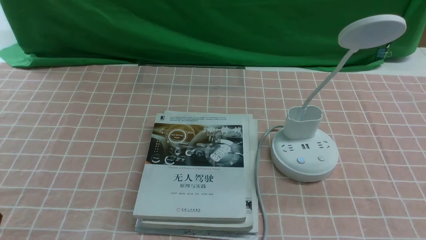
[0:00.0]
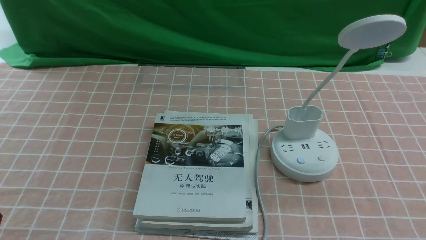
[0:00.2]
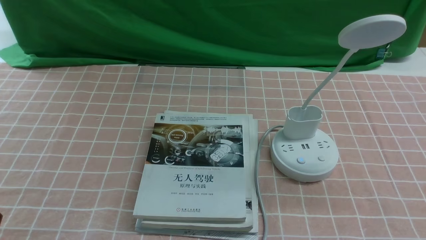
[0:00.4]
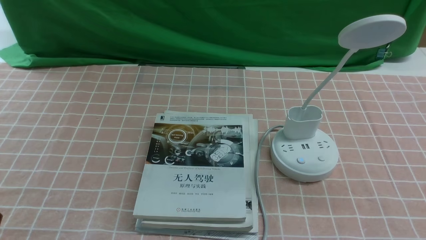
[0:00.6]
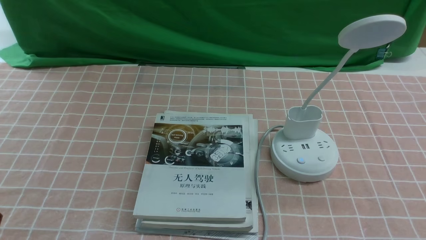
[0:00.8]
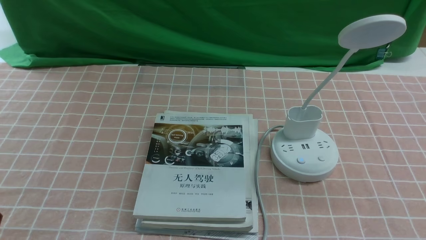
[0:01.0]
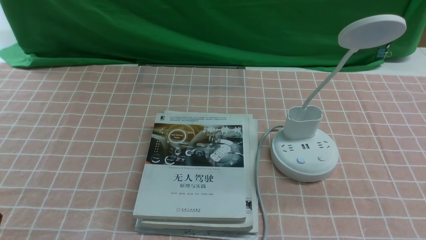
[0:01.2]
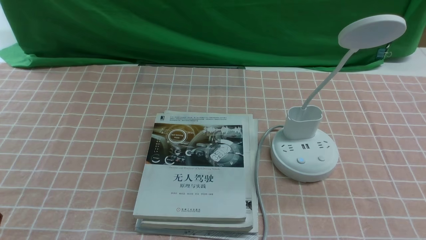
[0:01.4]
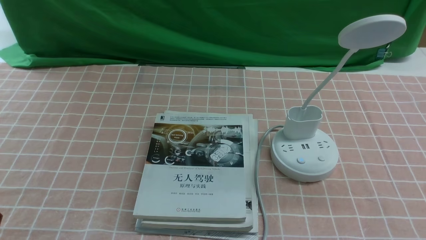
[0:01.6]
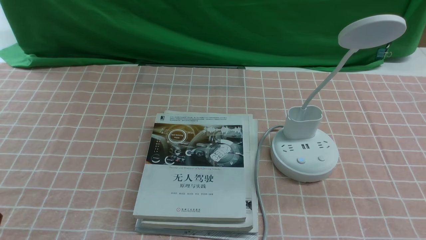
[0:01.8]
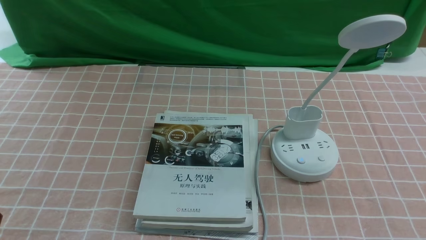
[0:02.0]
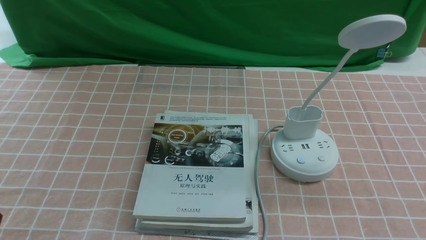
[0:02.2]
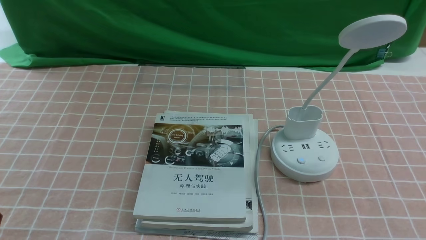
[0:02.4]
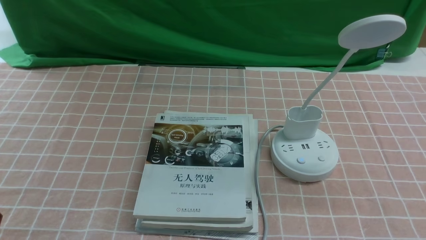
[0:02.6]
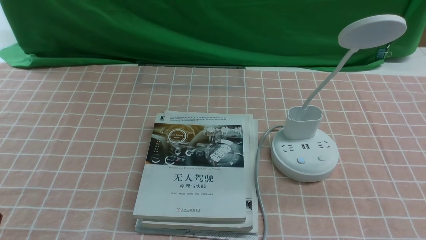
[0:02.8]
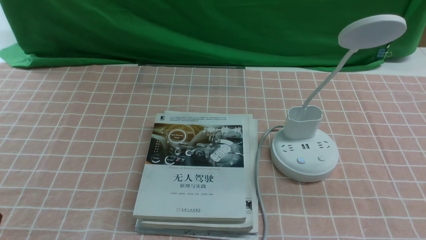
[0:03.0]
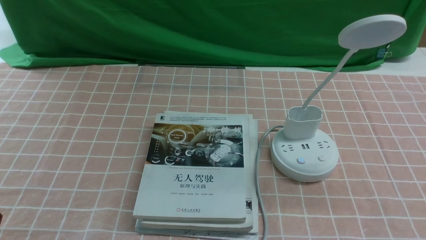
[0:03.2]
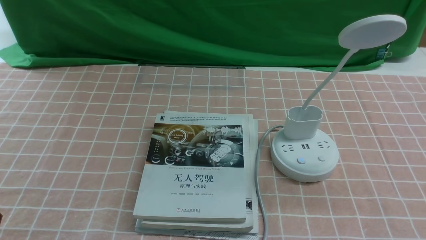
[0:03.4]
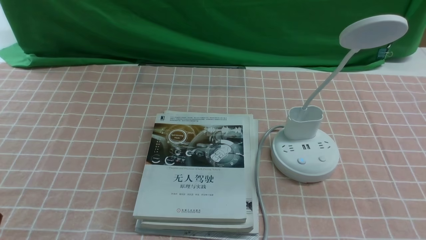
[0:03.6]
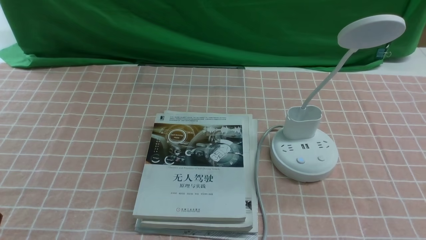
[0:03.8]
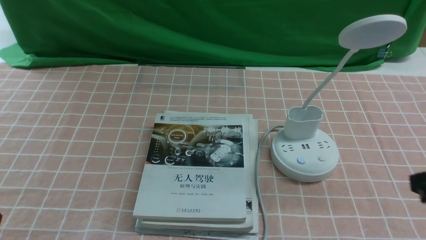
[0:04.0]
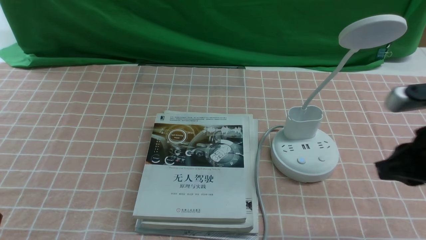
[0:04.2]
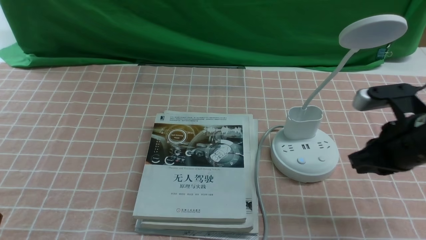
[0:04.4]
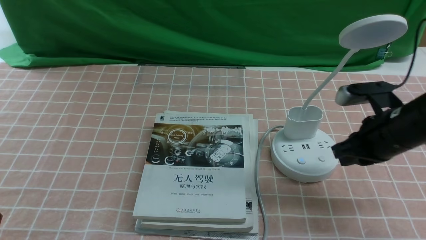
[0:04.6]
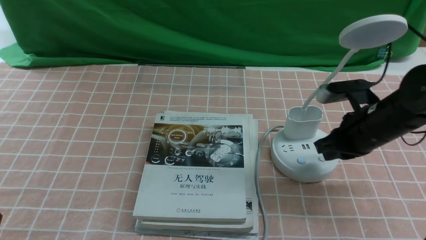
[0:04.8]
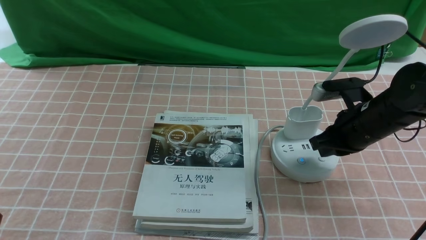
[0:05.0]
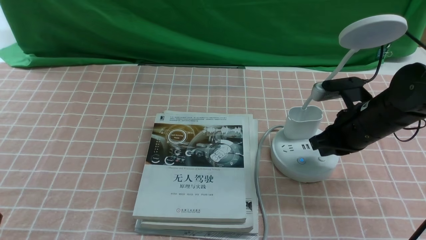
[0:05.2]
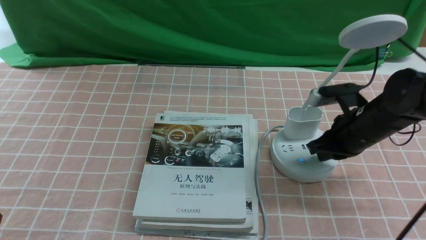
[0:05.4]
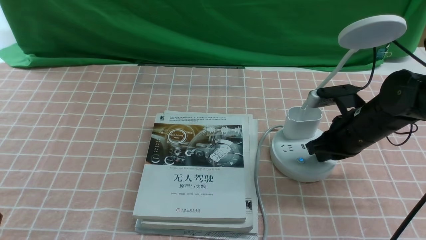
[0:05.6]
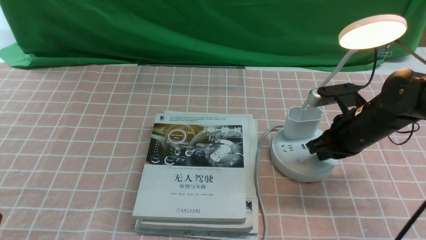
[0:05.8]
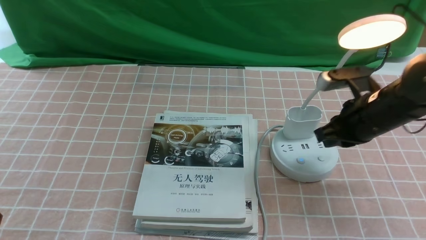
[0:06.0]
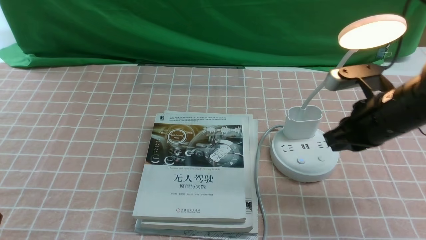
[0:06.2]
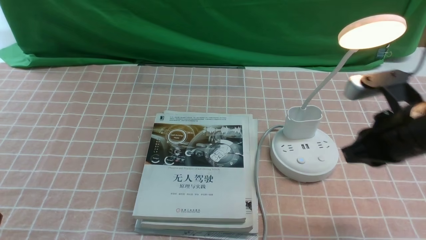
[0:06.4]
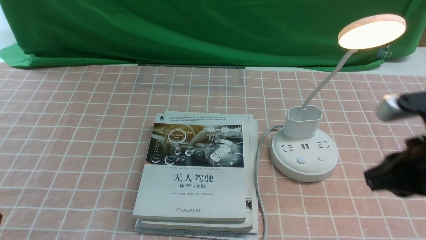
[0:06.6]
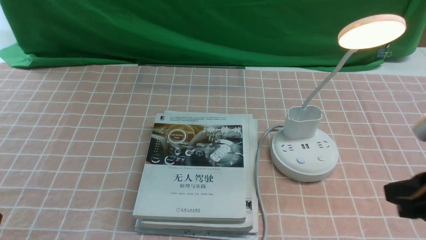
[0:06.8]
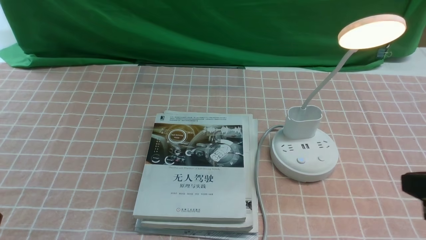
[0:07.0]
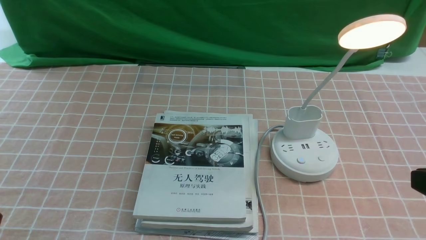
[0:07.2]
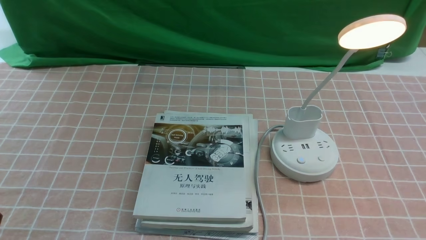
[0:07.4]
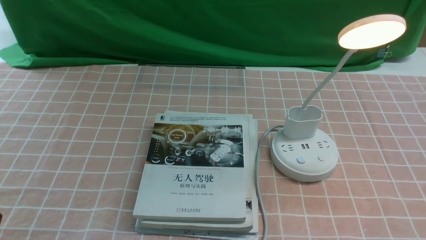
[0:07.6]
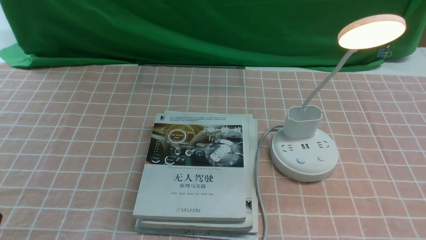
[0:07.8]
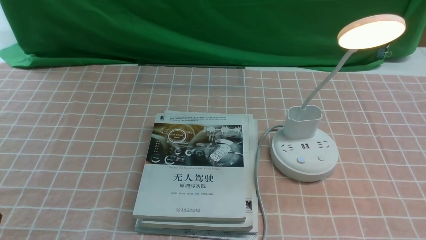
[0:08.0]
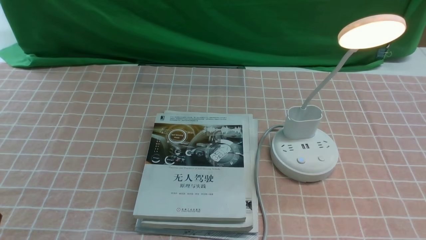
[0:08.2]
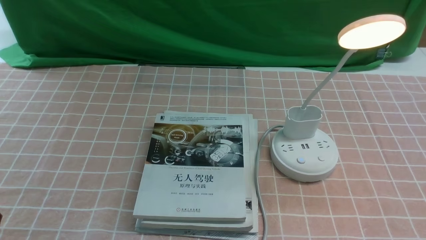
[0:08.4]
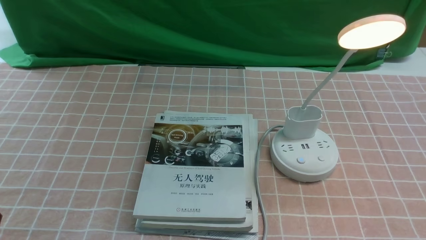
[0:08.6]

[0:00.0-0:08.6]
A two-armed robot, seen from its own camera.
Step, 0:00.0 to 0:06.0: use the right arm to press the button switch on the lamp holder.
0:00.0 to 0:01.4: Neither gripper changes place.
0:02.8 to 0:04.4: The right gripper travels forward by about 20 cm, and closes its fingers.
0:04.4 to 0:05.8: The right gripper shifts some 5 cm forward.
0:05.8 to 0:07.2: The right gripper moves backward and upward, roughly 25 cm.

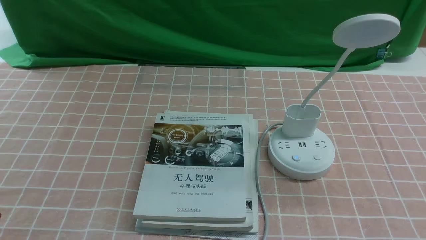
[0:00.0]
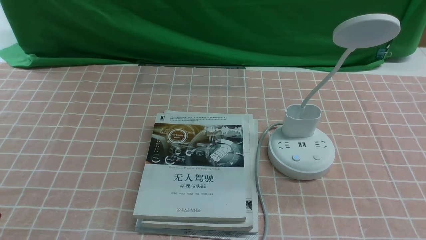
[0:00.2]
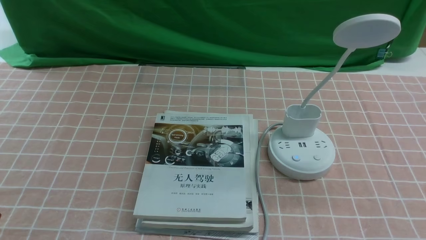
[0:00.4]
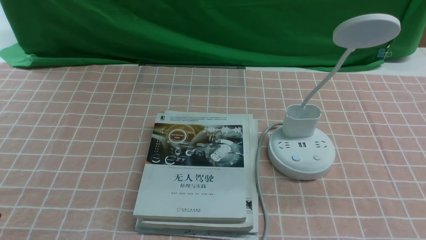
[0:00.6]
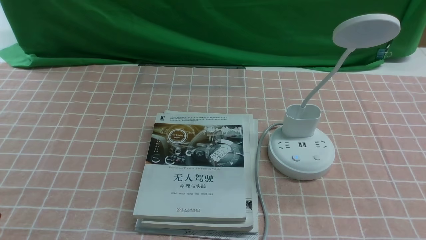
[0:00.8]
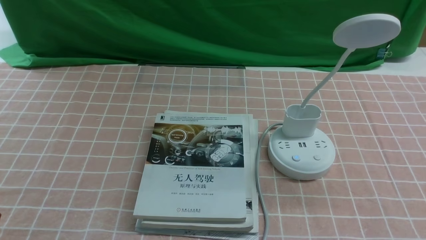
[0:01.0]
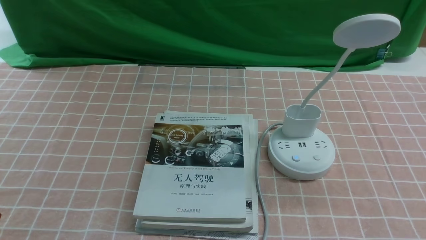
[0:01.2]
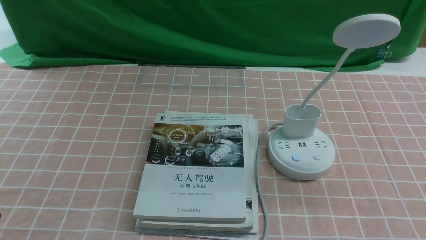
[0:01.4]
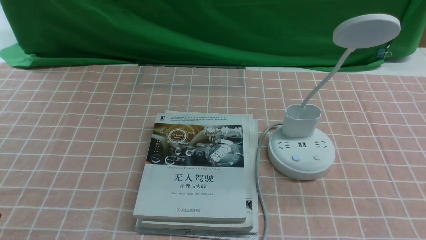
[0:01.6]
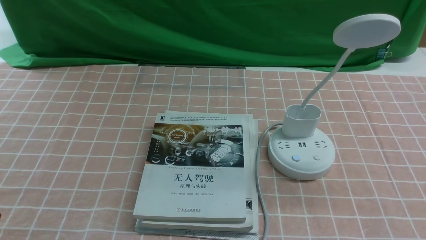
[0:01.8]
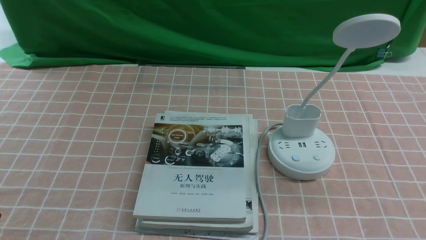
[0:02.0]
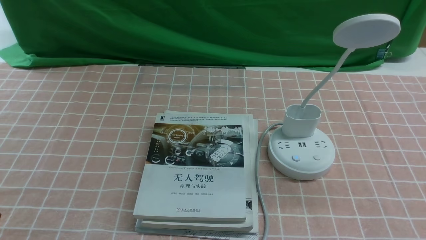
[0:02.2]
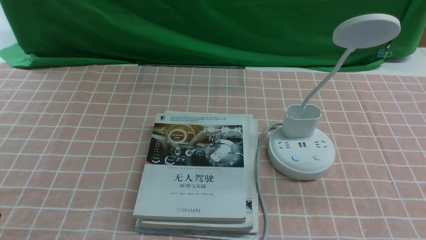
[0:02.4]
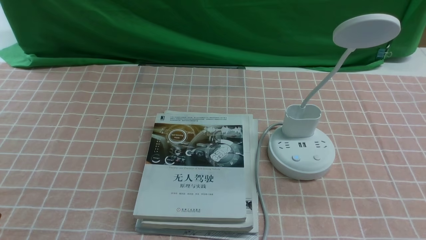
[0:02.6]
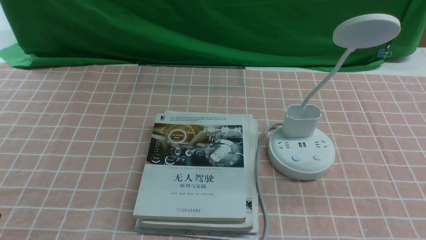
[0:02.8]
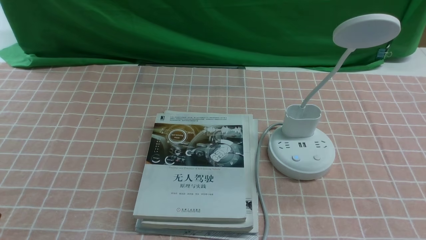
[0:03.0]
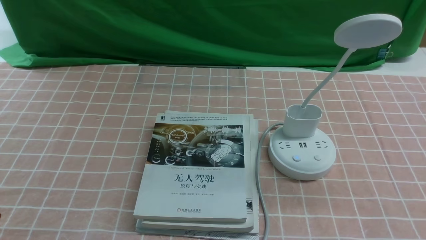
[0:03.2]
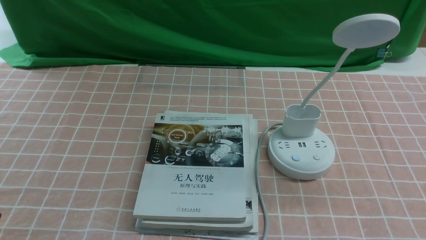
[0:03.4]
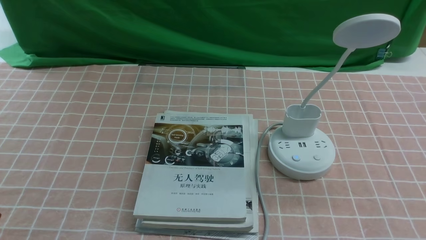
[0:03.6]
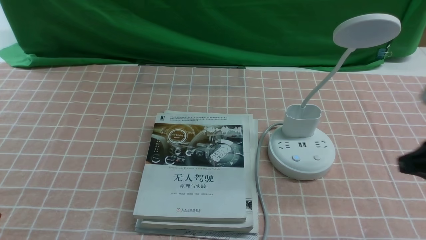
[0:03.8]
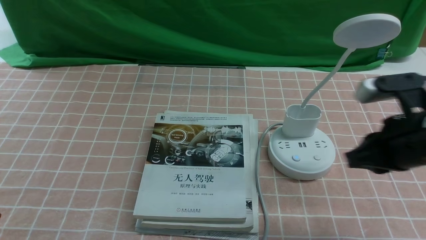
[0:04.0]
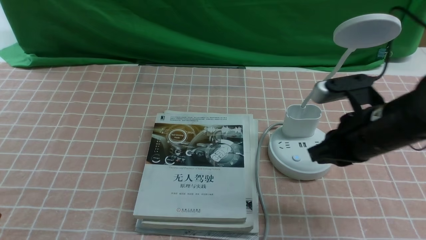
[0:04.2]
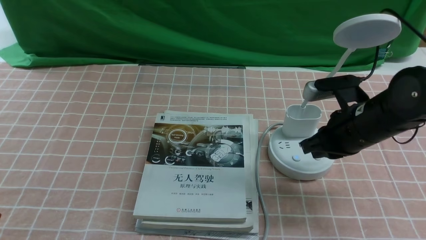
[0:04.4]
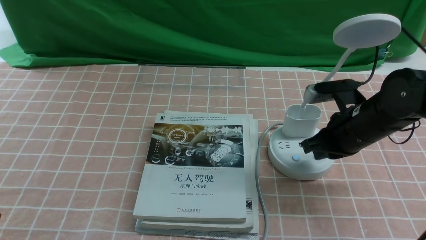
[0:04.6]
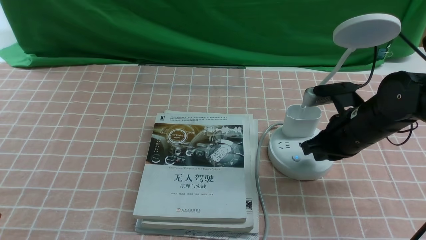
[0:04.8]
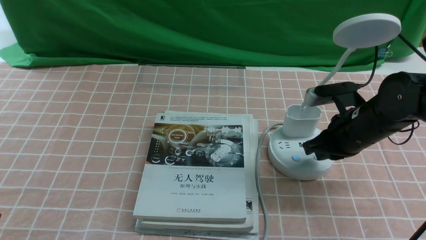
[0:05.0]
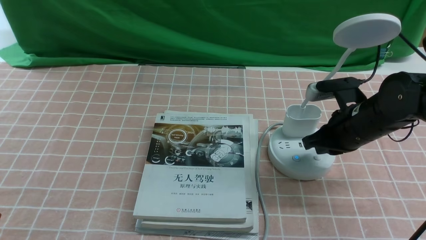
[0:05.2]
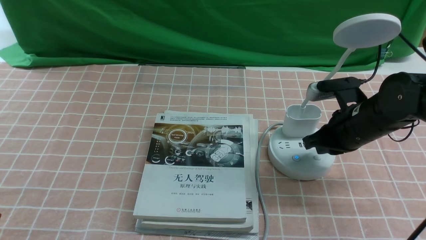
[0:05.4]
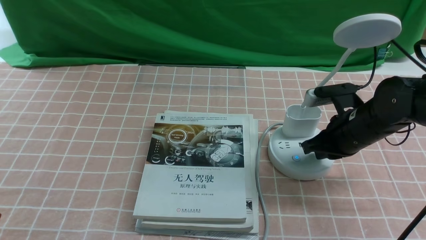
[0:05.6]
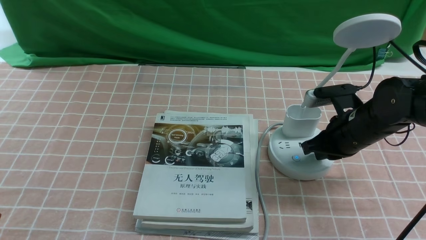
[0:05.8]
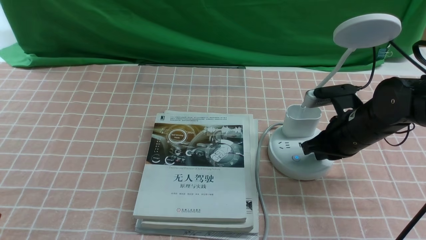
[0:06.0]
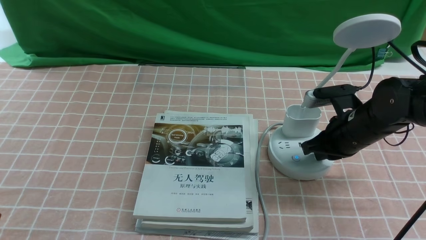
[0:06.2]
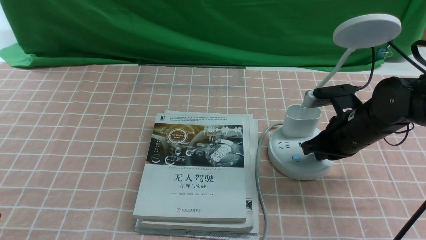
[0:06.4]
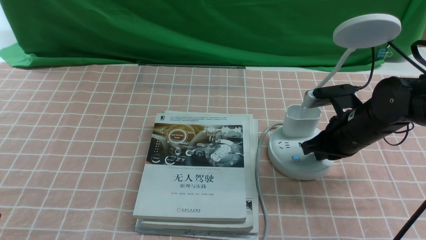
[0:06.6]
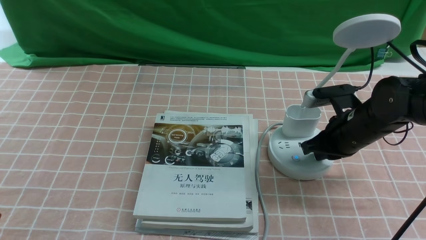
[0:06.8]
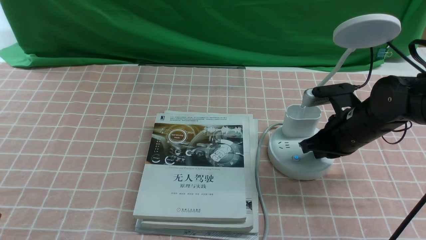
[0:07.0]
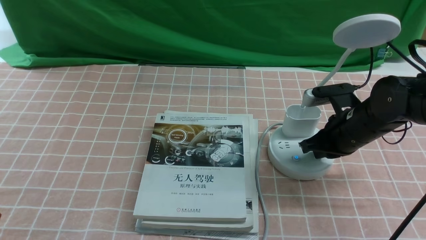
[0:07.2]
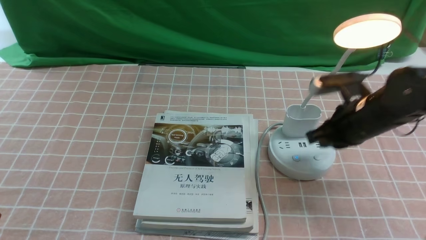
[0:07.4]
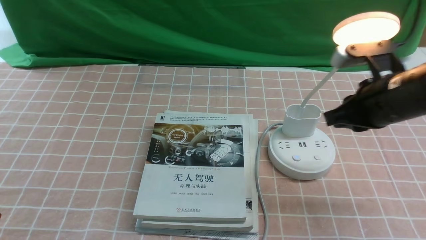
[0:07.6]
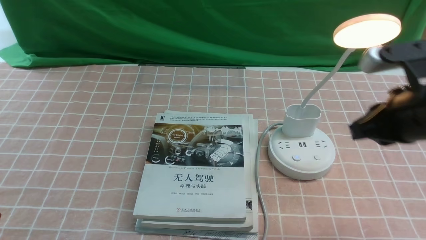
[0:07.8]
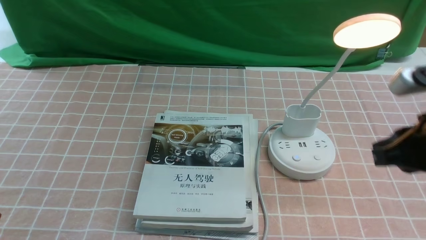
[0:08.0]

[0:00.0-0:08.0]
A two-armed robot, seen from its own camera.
Step, 0:00.0 to 0:07.4: use the right arm to press the button switch on the lamp holder.
0:03.2 to 0:04.8: The right gripper is displaced forward and to the left by about 30 cm, and closes.
0:04.8 to 0:06.4: There are only small adjustments of the grippers.
0:06.4 to 0:08.0: The right gripper heads upward and backward, covering some 15 cm.
